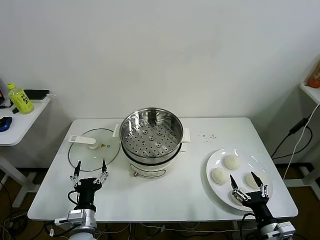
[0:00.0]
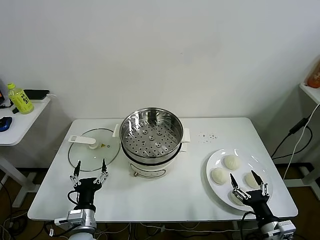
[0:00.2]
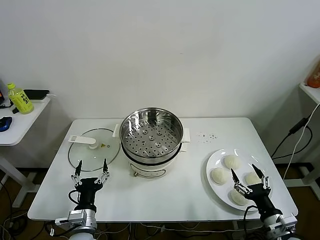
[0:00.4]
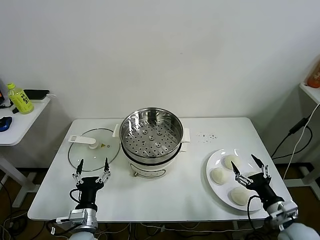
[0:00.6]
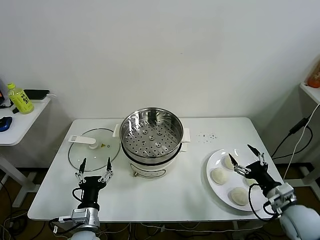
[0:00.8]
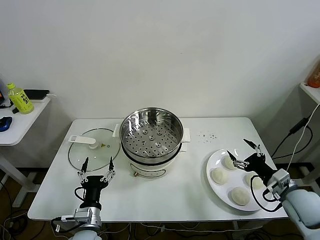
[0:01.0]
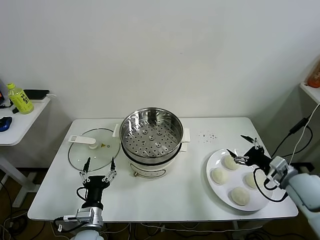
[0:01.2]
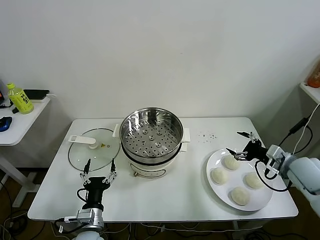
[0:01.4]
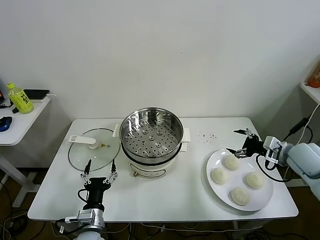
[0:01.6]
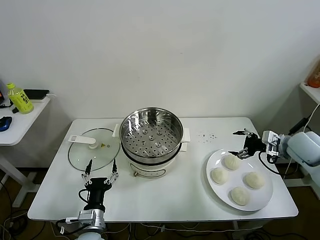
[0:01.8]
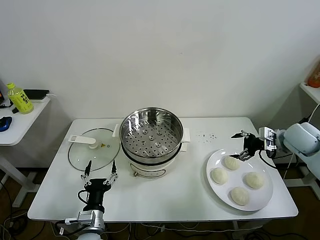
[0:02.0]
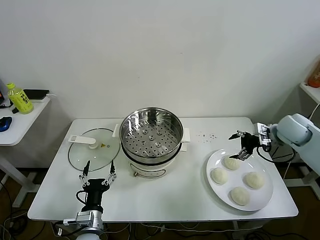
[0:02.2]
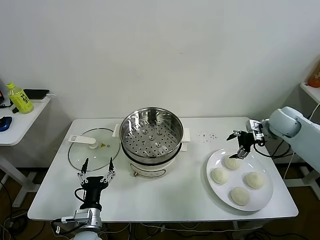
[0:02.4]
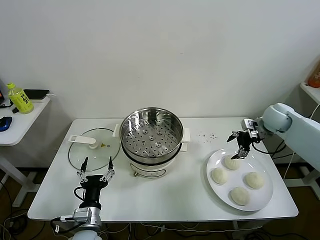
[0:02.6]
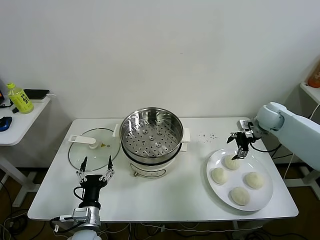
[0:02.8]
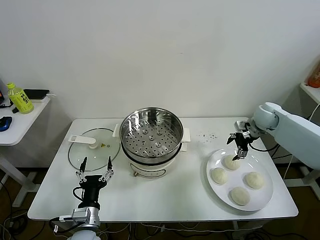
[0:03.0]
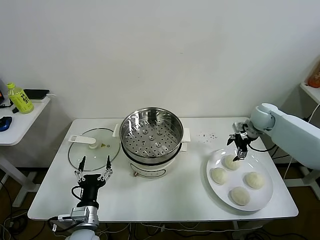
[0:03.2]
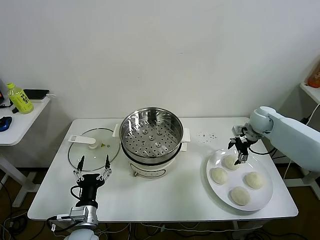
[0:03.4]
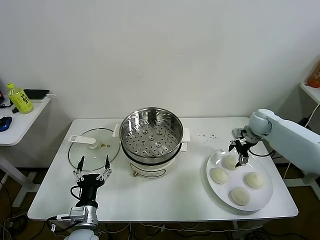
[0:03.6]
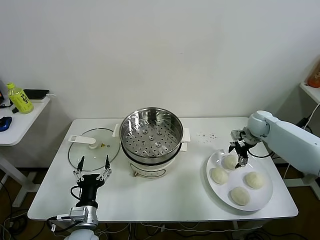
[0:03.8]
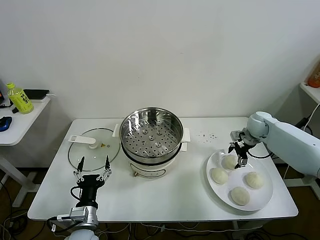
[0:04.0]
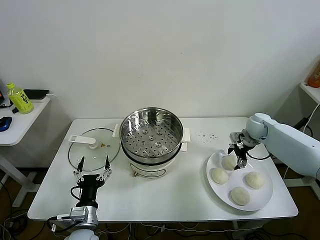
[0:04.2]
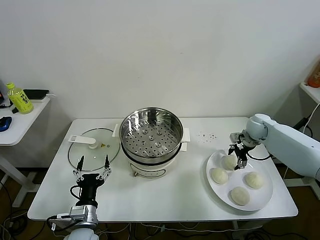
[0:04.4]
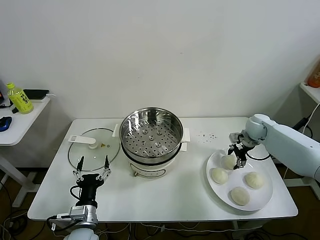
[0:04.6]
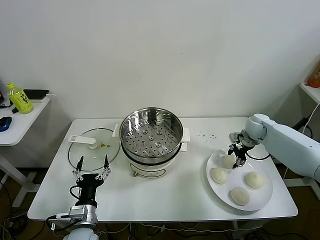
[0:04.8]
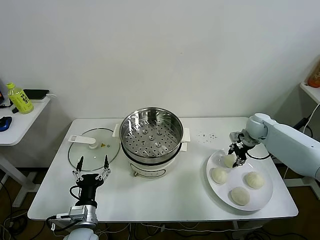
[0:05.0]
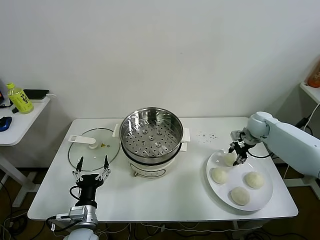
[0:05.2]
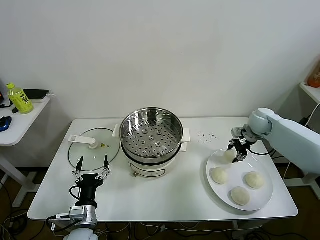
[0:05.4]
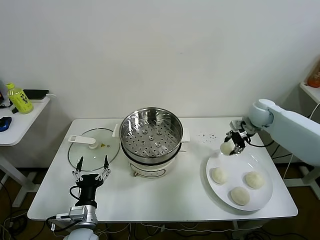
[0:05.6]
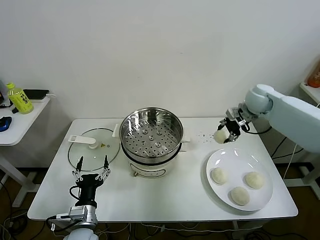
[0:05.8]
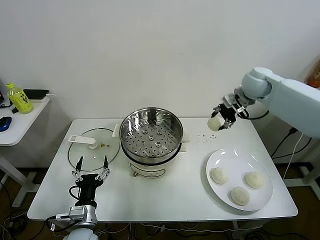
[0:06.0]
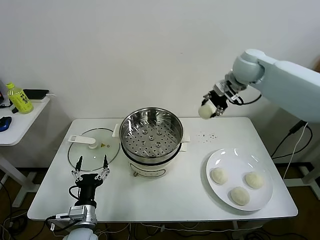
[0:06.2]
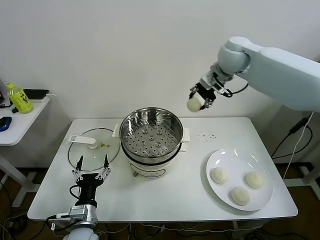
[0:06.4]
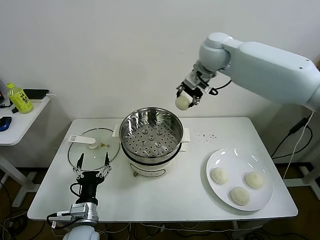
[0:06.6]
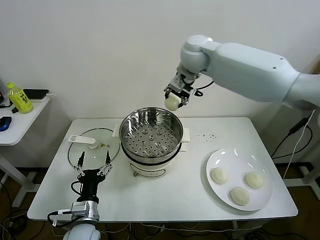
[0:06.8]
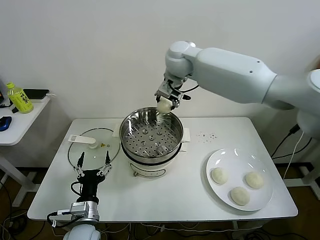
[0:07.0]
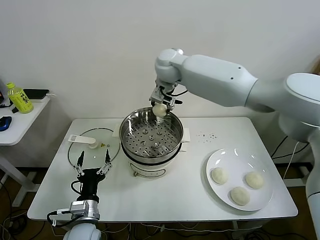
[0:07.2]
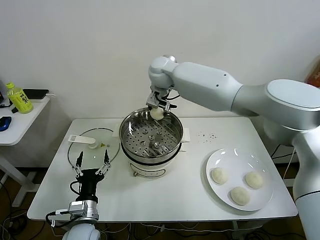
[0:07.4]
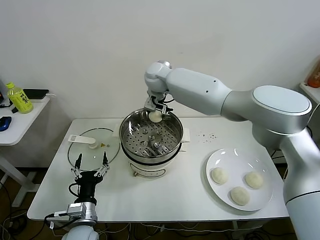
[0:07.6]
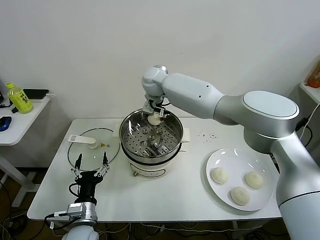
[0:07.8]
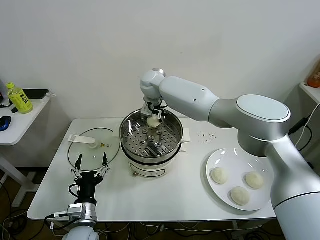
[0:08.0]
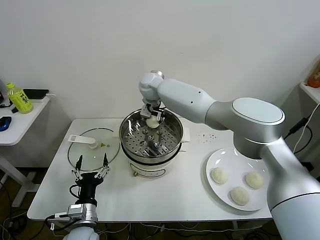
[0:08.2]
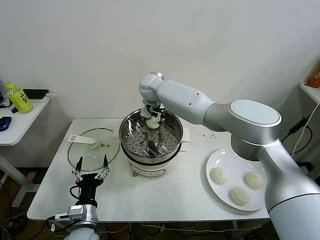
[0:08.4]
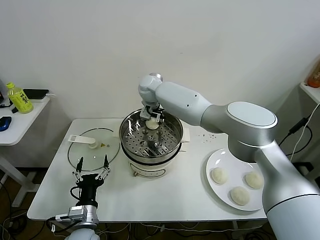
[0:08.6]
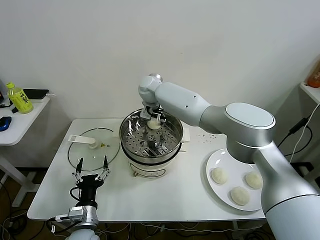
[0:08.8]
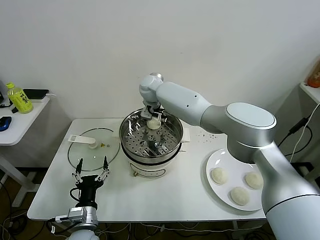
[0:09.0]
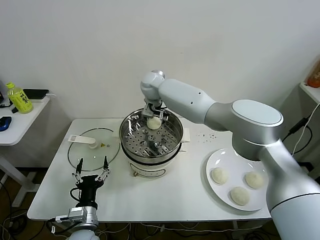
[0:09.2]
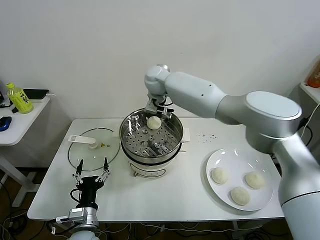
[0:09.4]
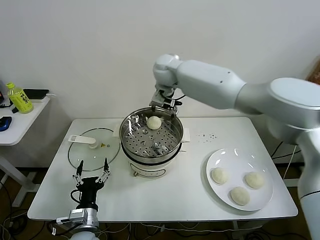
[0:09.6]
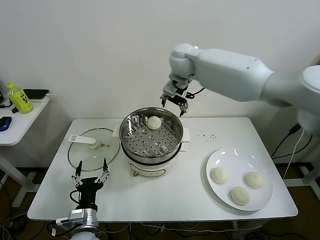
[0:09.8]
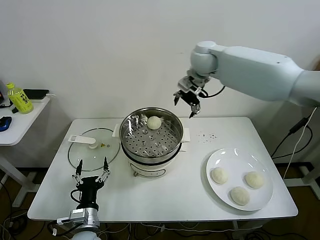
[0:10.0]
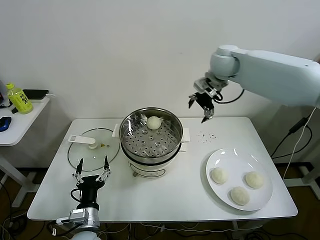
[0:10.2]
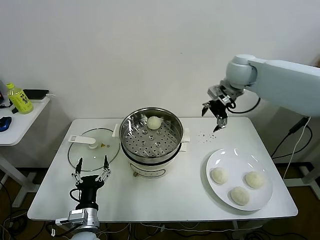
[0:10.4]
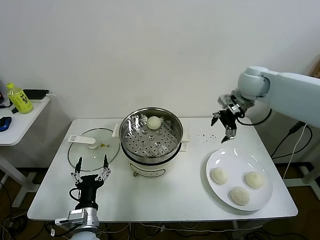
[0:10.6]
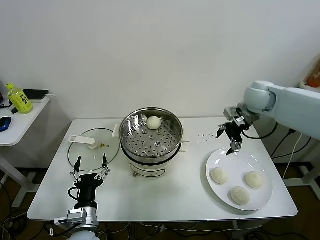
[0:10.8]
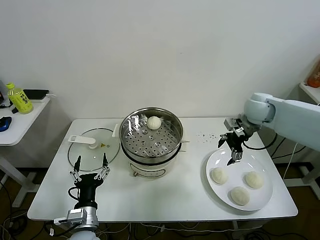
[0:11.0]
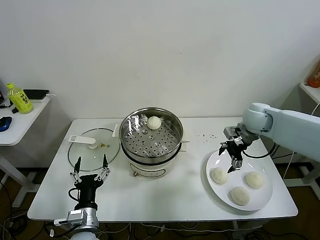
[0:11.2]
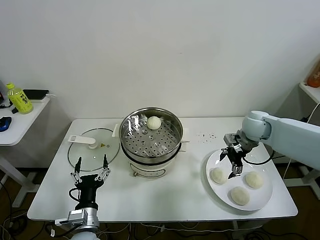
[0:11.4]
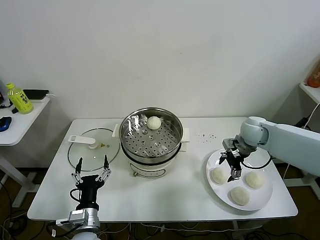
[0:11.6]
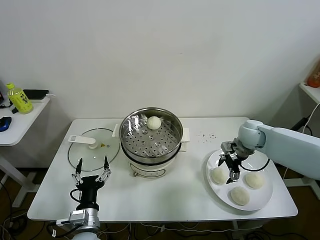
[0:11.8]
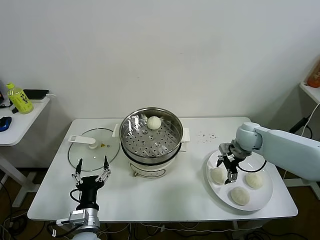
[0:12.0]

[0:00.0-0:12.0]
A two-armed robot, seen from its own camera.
Task of the whole recording: take steamed baozi put them in steamer.
Step, 0:00.0 to 0:04.6: Grasp the baozi in the plate with right gripper.
Step, 0:05.0 to 0:09.0: Place the baozi on the steamer with right gripper.
0:01.6 to 0:03.0: The right gripper is displaced forward by approximately 20 cm.
0:03.0 to 0:04.4: The right gripper heads downward, covering roughly 5 cm.
0:04.4 to 0:06.0: The right gripper goes roughly 20 cm upward, and closes its fingers.
0:06.0 to 0:07.6: The right gripper shifts approximately 30 cm to the left.
0:07.6 to 0:09.0: The right gripper heads downward, covering about 5 cm, and opens its fingers.
0:09.0 to 0:10.4: The right gripper goes roughly 30 cm to the right.
0:10.4 to 0:12.0: The right gripper is displaced downward by approximately 25 cm.

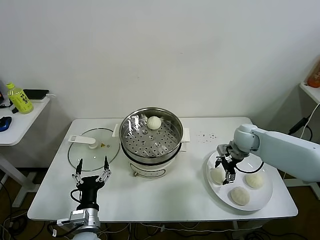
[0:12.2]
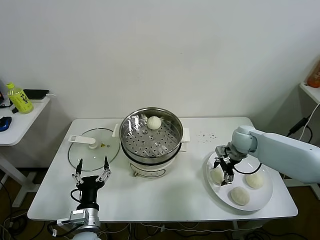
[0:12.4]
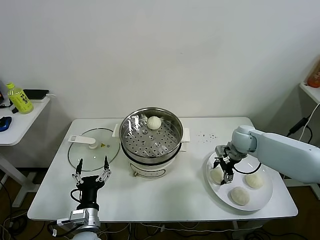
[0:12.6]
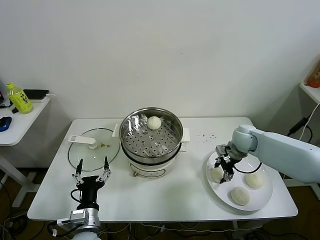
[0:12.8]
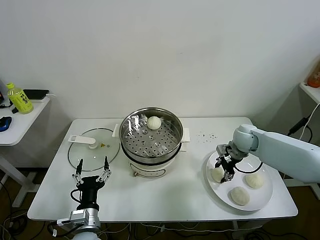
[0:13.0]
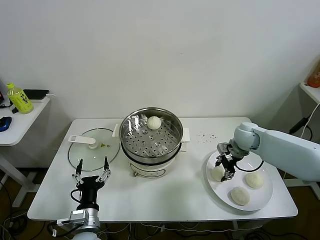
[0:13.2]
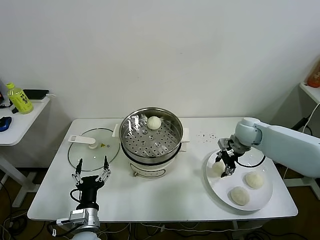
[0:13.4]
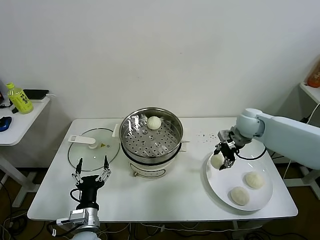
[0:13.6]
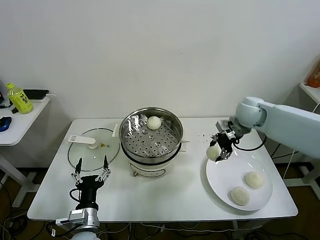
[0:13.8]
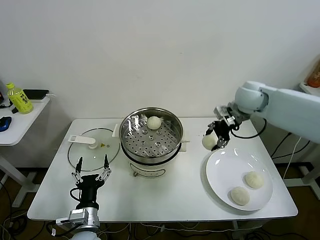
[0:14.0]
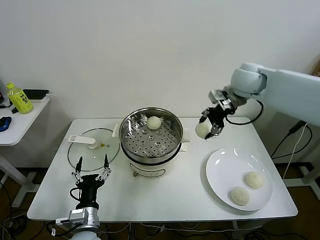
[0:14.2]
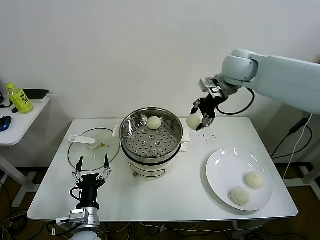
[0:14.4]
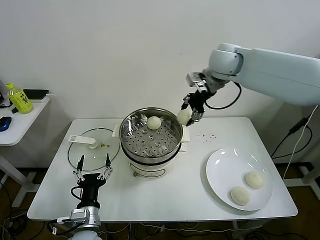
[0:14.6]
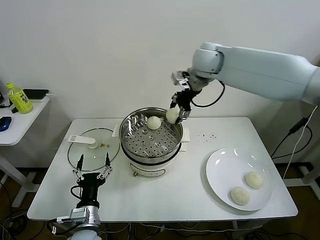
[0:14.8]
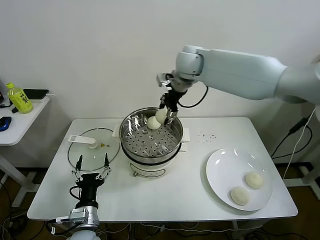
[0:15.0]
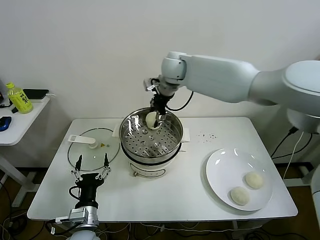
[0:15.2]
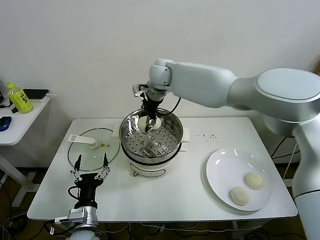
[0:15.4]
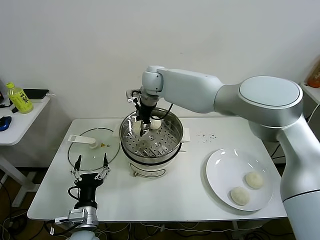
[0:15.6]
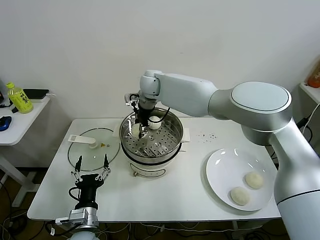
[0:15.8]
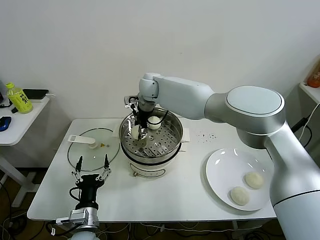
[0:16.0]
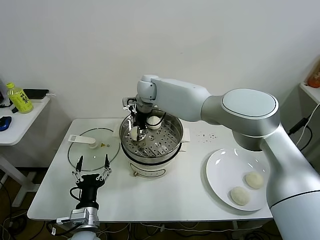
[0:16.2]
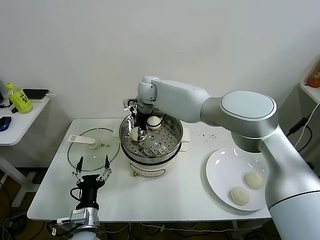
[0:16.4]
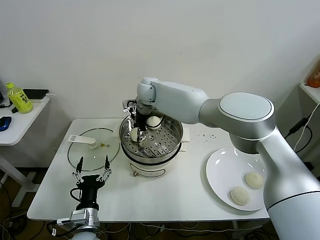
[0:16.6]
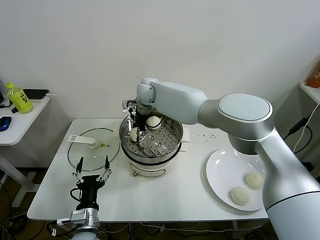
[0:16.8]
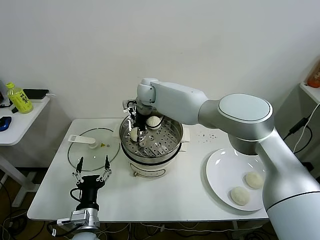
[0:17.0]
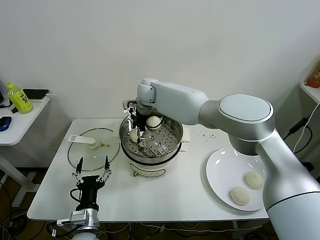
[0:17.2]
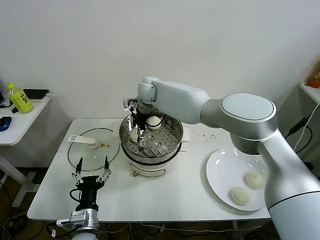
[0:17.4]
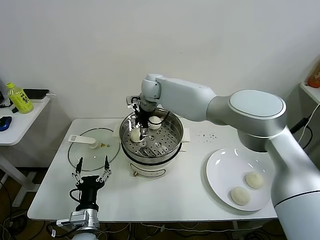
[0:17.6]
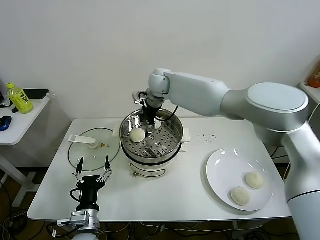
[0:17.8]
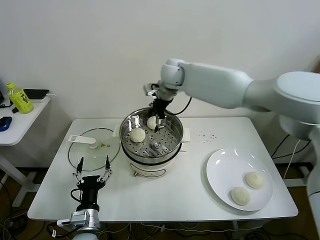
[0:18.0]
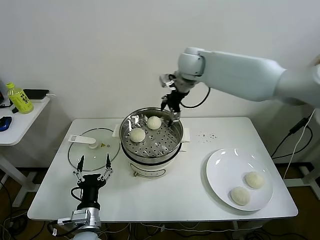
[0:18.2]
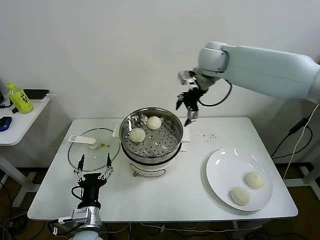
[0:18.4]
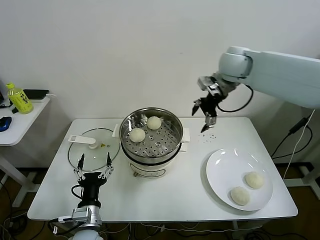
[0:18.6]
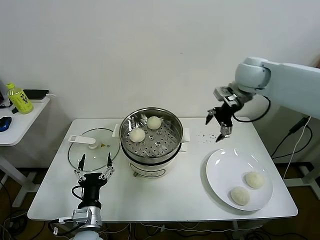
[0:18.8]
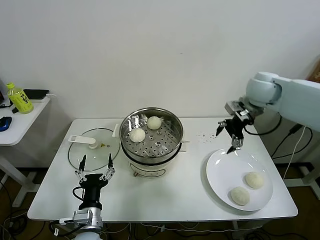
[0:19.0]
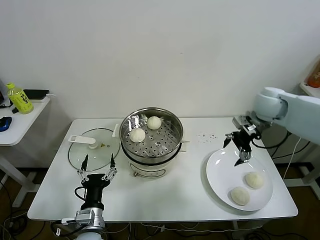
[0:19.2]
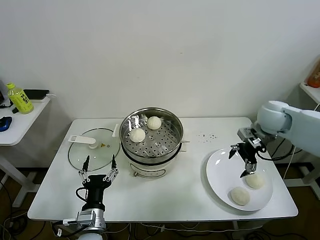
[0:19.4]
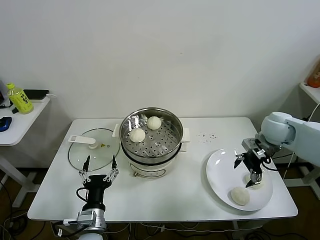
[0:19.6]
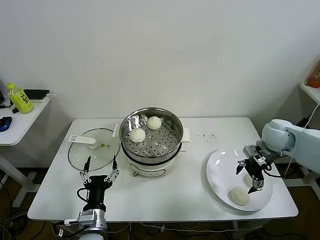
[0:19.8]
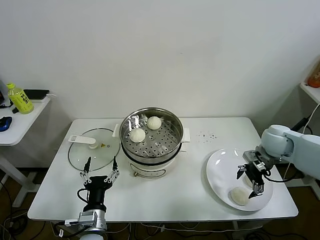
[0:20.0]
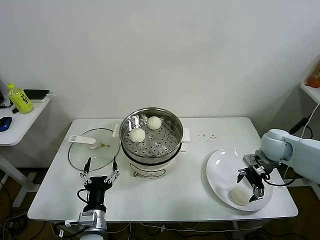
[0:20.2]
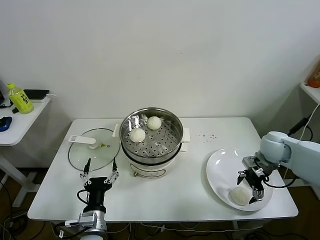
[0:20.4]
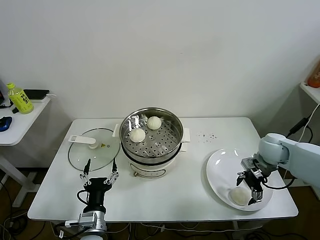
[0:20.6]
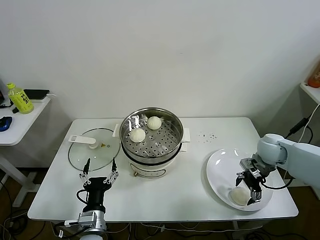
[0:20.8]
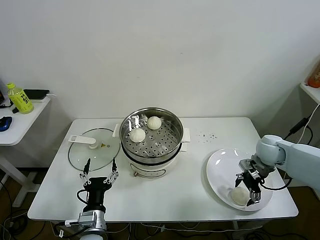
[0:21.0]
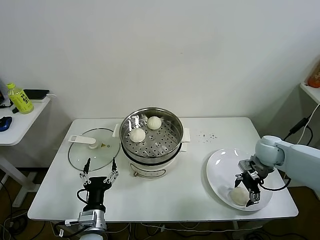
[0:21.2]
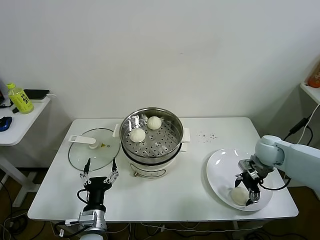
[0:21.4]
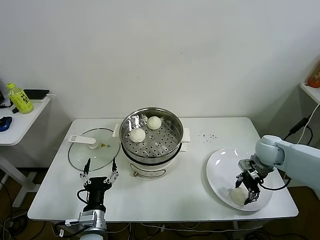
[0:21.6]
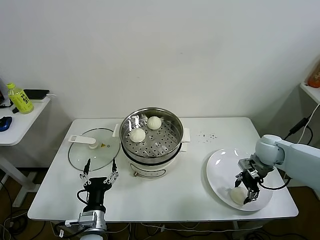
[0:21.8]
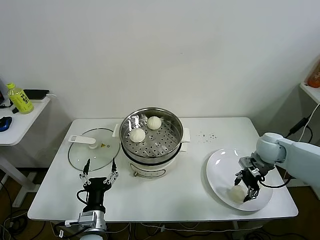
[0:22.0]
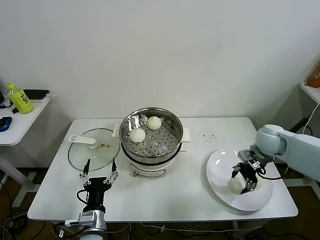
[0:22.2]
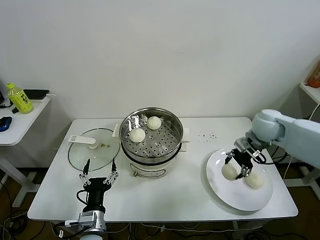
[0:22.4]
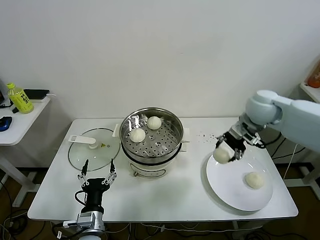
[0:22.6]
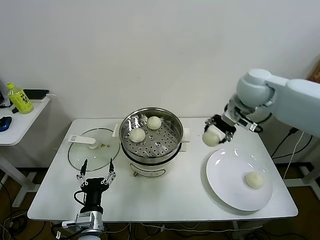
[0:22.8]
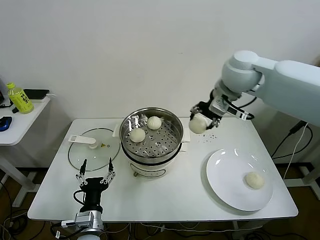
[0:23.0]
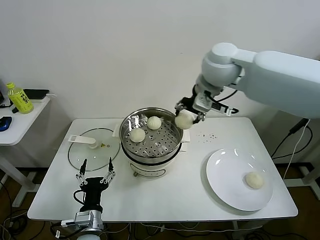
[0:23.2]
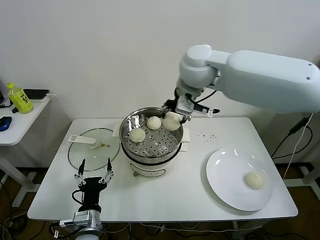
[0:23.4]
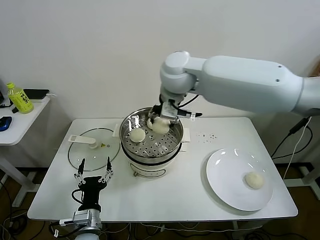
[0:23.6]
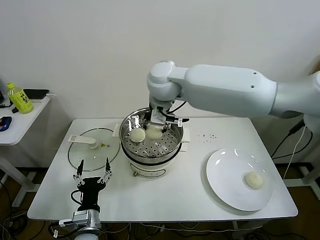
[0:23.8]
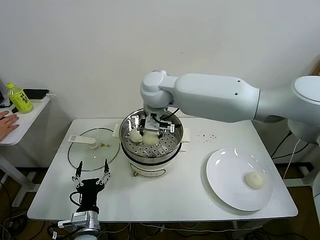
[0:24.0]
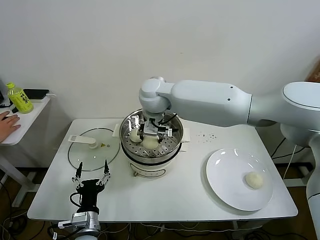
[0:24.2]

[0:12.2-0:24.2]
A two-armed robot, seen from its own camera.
Task of the whole recording: take steamed baozi put them in steamer.
Step, 0:13.2 to 0:17.6: Place the baozi on the steamer with right gripper.
Step, 0:17.8 to 0:21.8: Grasp the baozi in the plate with right gripper.
0:12.2 to 0:13.8: The right gripper moves upward, about 10 cm, and closes its fingers.
0:13.8 to 0:15.2: The right gripper goes some 30 cm to the left and upward.
0:15.2 to 0:16.6: The right gripper goes approximately 15 cm downward and to the left.
0:16.6 to 0:18.2: The right gripper shifts some 15 cm to the right and upward, and opens up.
0:18.2 to 0:19.8: The right gripper is displaced to the right, downward and backward by approximately 35 cm.
0:19.8 to 0:21.2: The right gripper moves downward, roughly 5 cm.
0:21.2 to 0:22.6: The right gripper is displaced upward and to the left by some 15 cm, and closes up.
0:22.6 to 0:24.2: The right gripper moves to the left, approximately 35 cm.
